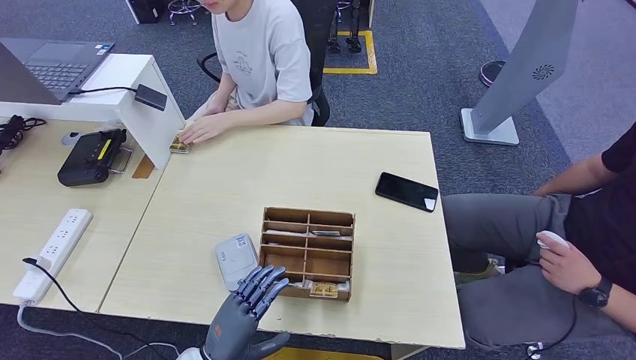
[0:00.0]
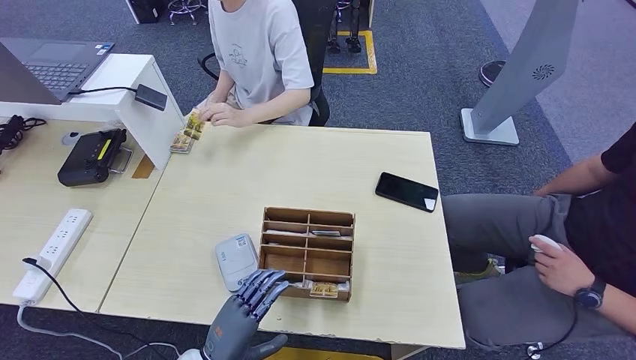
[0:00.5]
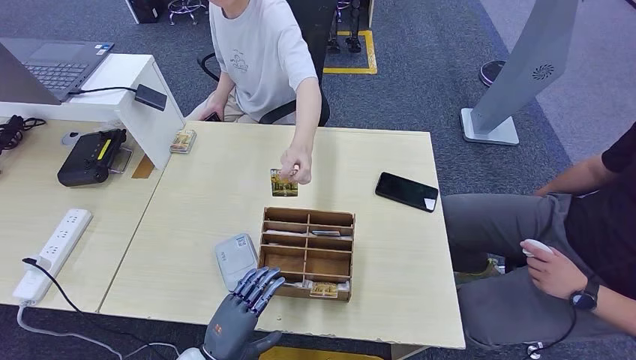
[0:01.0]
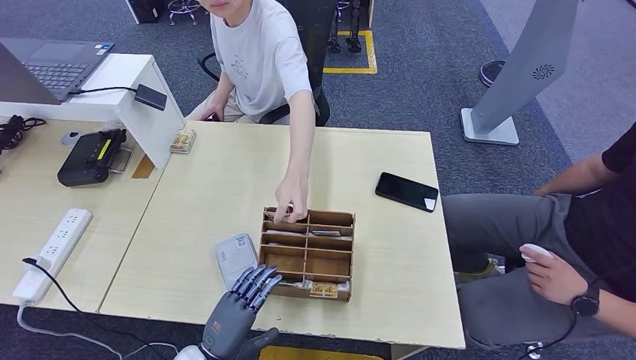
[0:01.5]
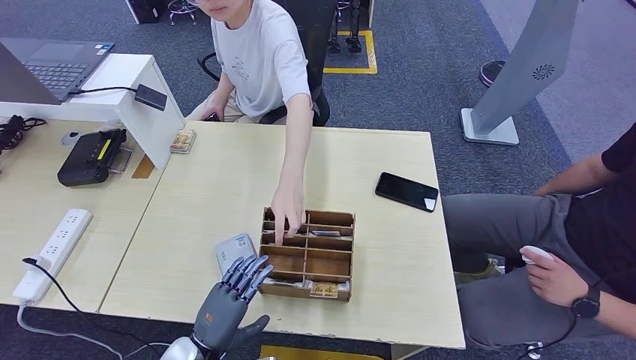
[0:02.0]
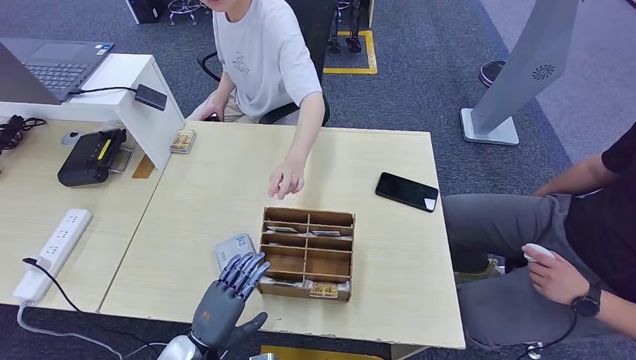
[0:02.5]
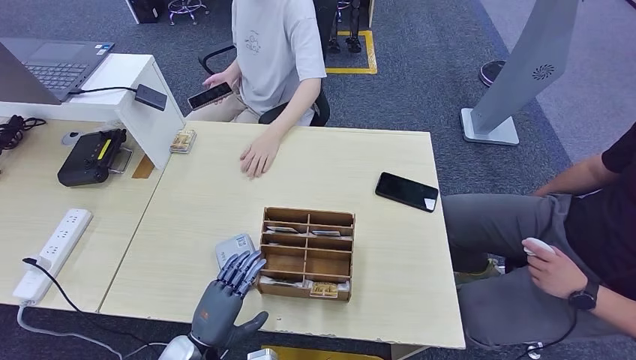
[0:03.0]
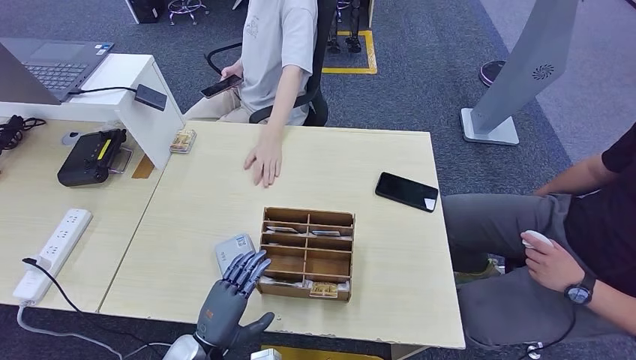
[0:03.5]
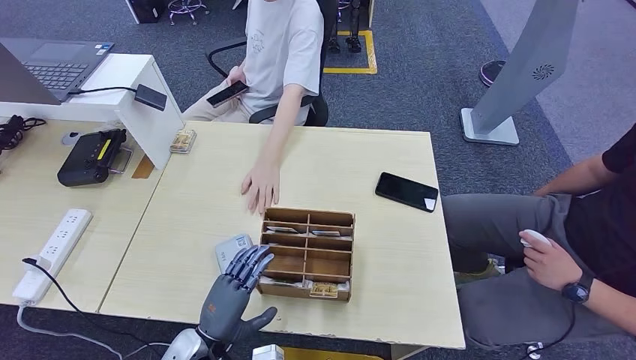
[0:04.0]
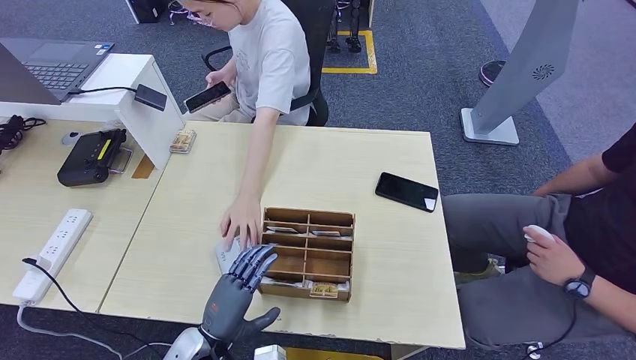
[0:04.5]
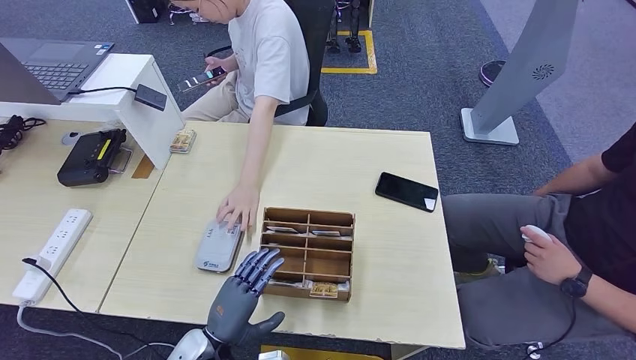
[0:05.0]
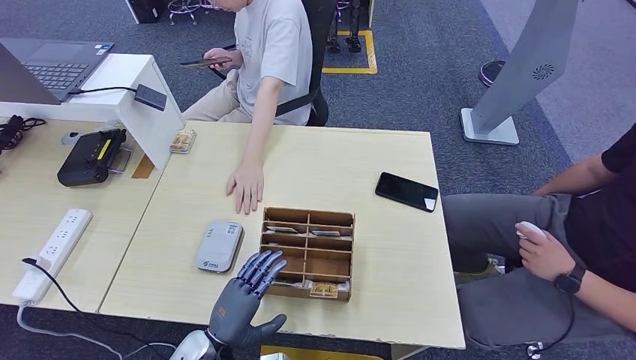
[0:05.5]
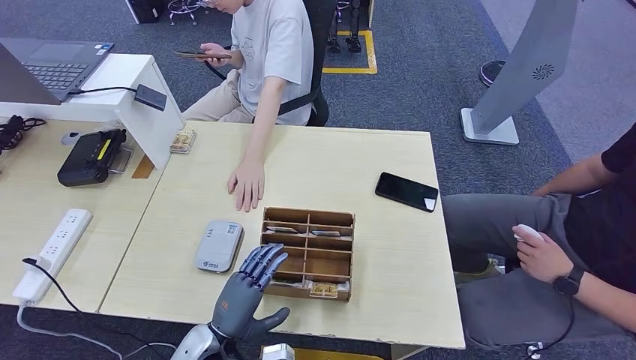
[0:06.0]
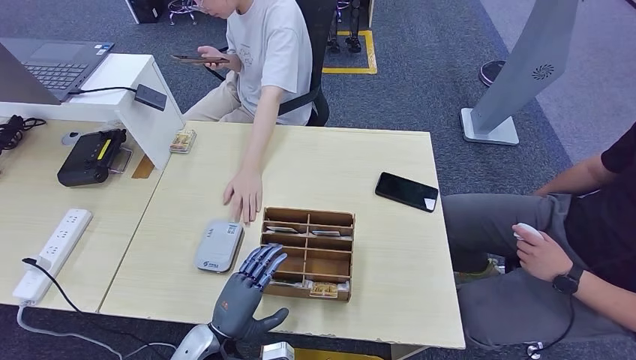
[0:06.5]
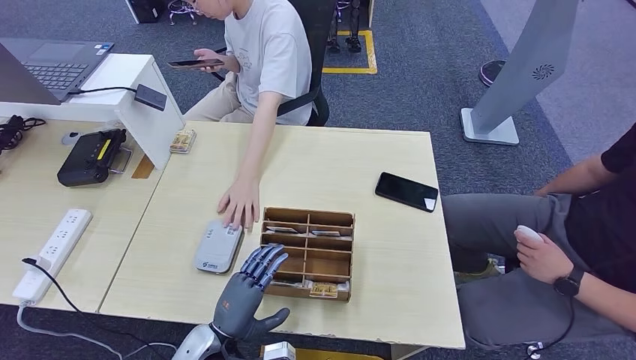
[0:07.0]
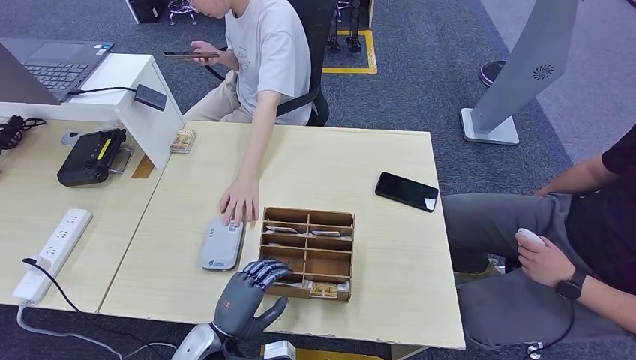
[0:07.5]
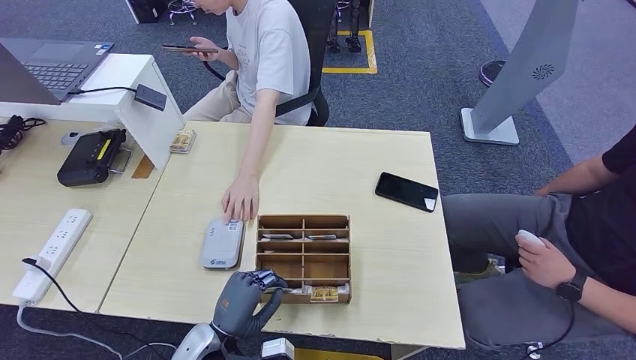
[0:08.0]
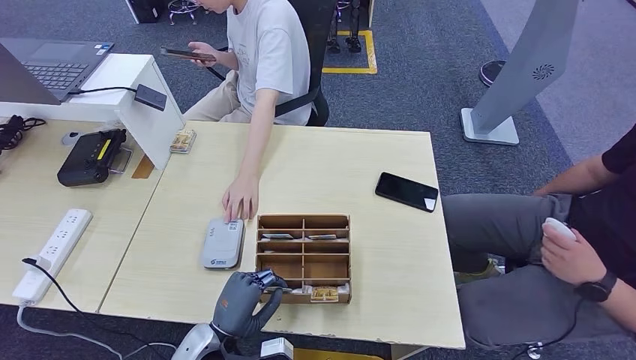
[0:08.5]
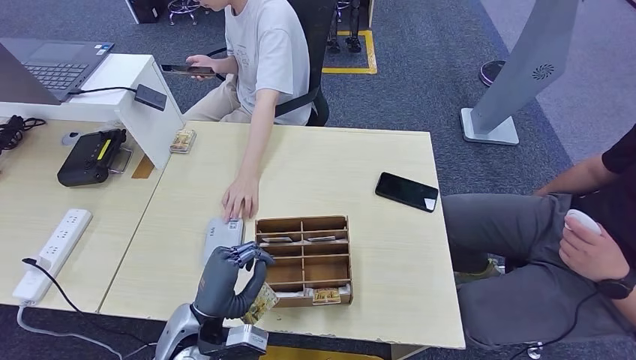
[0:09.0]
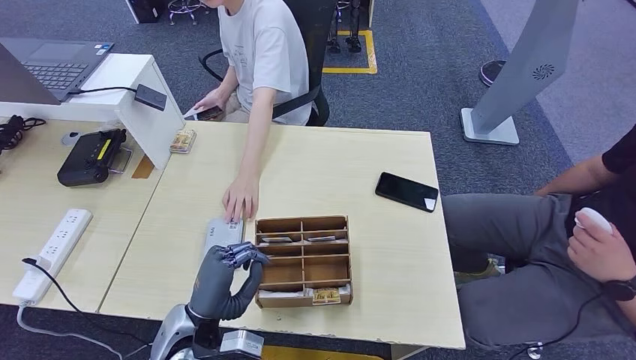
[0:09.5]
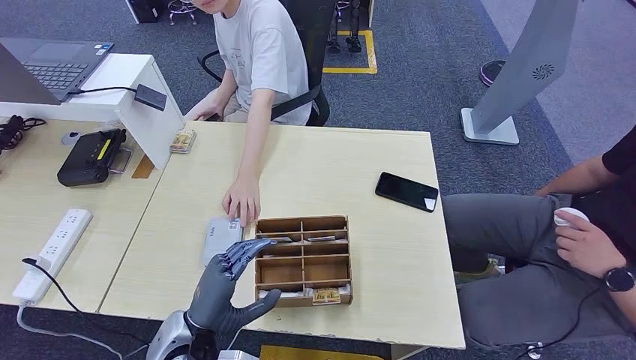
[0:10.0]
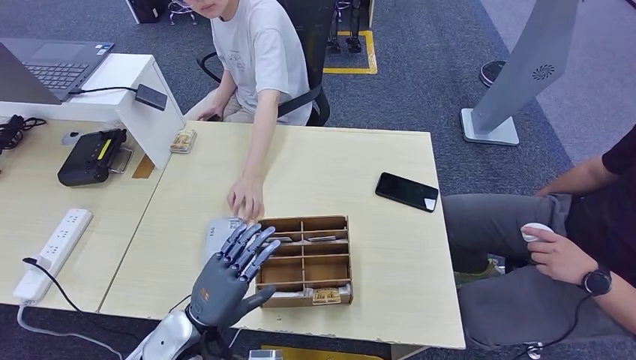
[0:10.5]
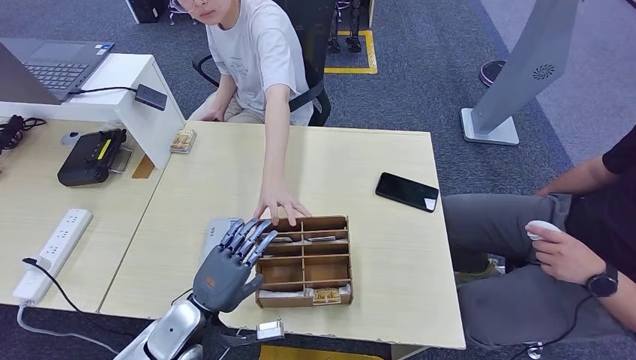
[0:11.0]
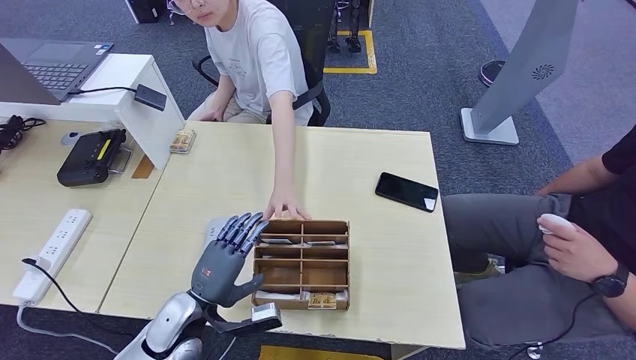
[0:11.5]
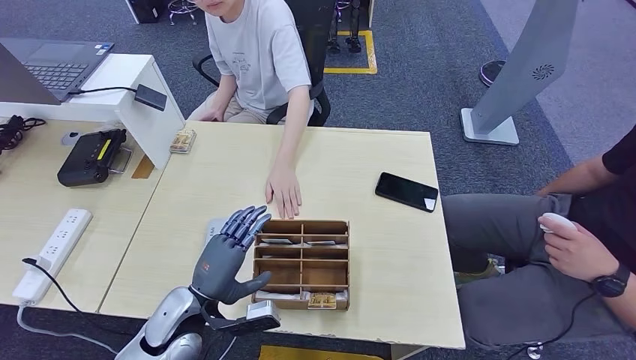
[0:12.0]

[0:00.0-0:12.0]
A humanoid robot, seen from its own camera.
0:00.0 to 0:06.0: The hands make only small movements.
0:06.0 to 0:08.0: Both hands stay about where they are.
0:08.0 to 0:10.0: The left hand shifts approximately 5 cm upward.

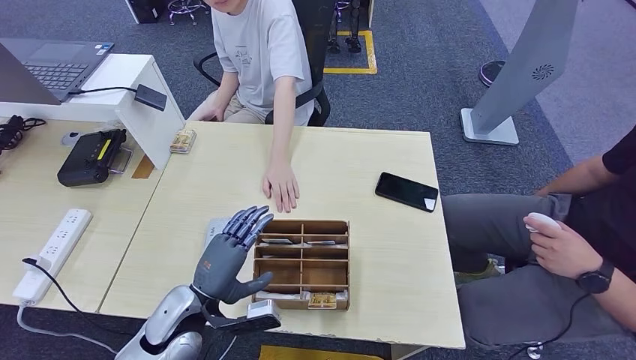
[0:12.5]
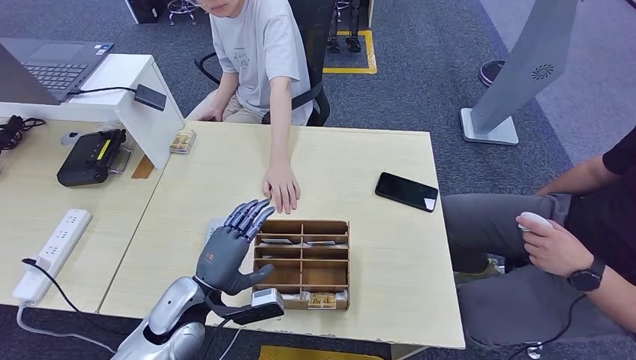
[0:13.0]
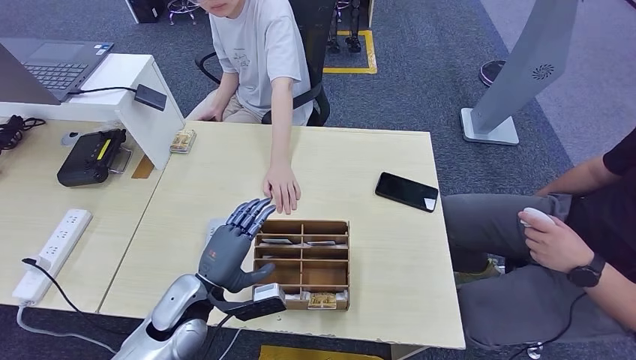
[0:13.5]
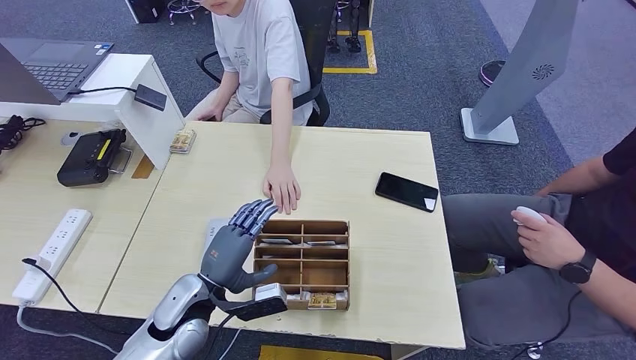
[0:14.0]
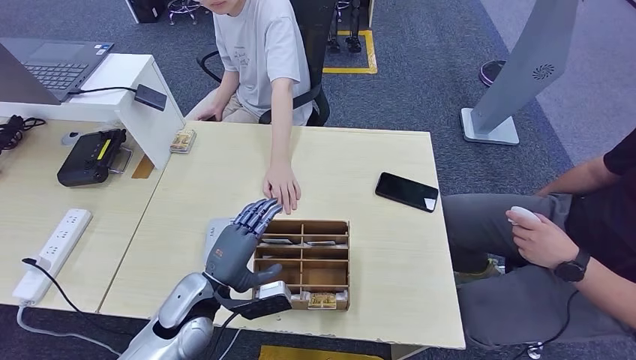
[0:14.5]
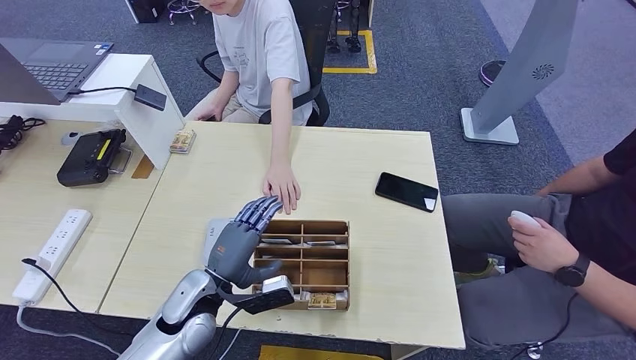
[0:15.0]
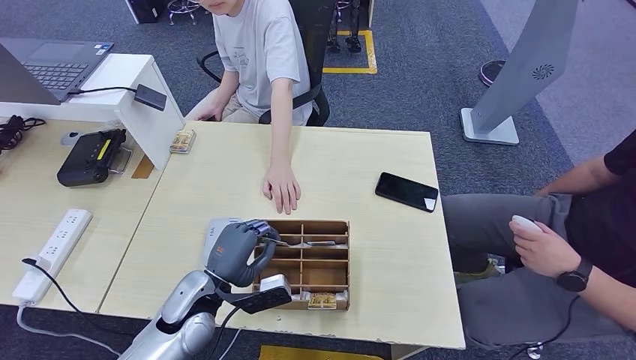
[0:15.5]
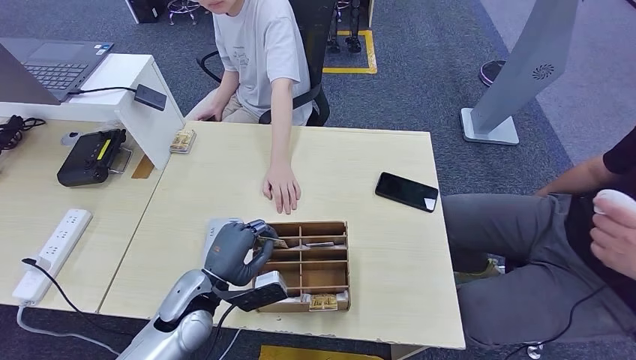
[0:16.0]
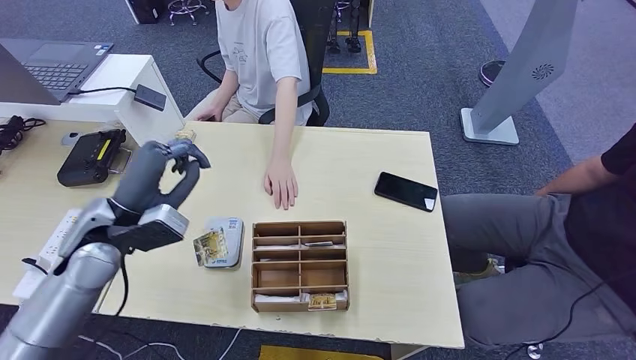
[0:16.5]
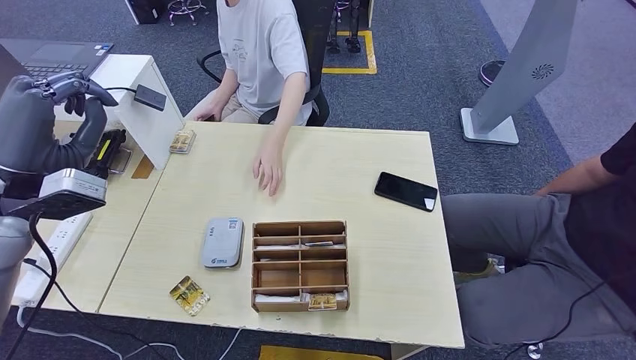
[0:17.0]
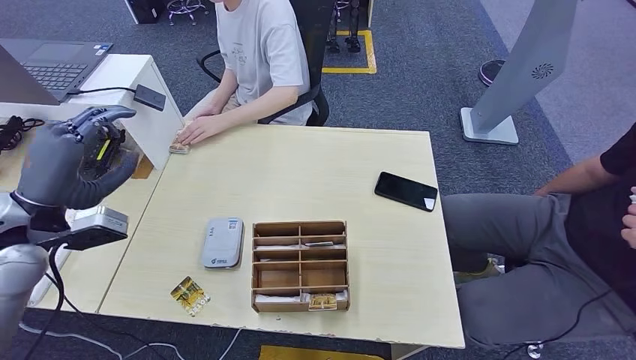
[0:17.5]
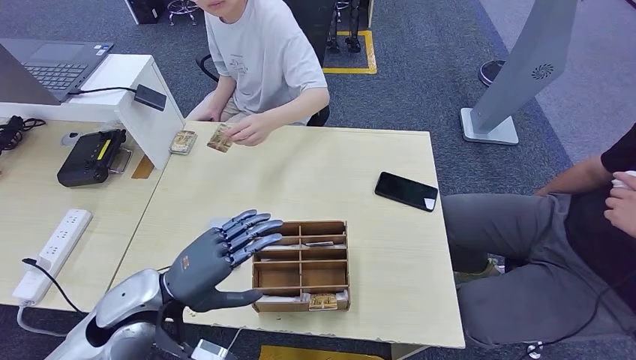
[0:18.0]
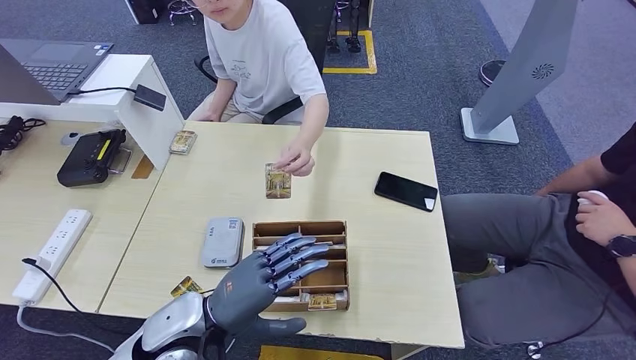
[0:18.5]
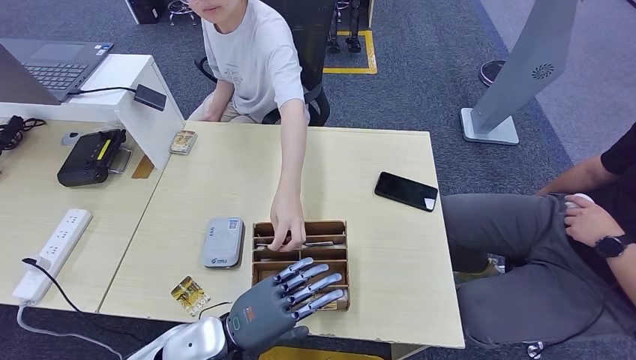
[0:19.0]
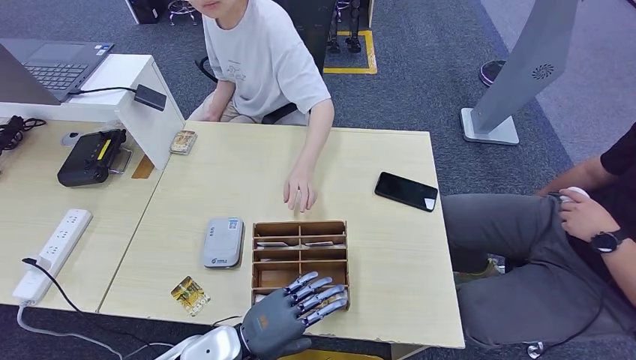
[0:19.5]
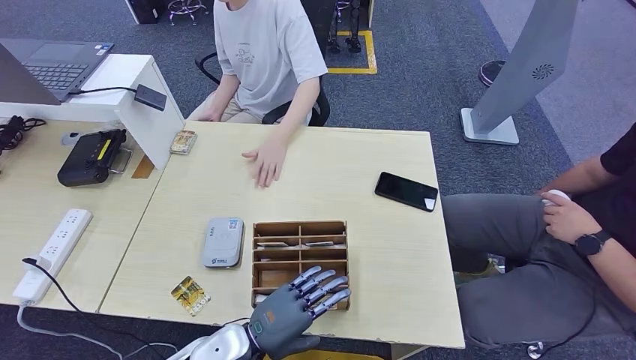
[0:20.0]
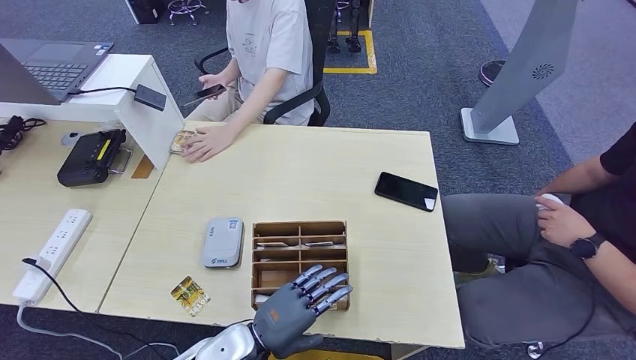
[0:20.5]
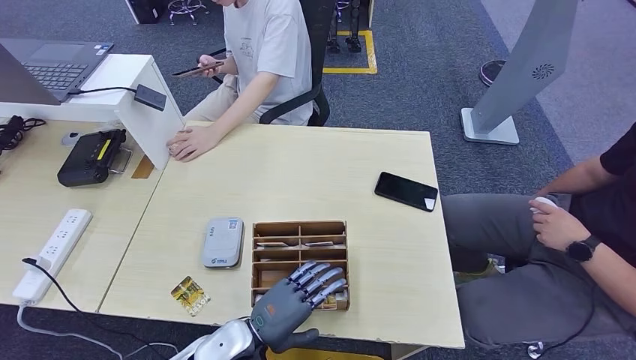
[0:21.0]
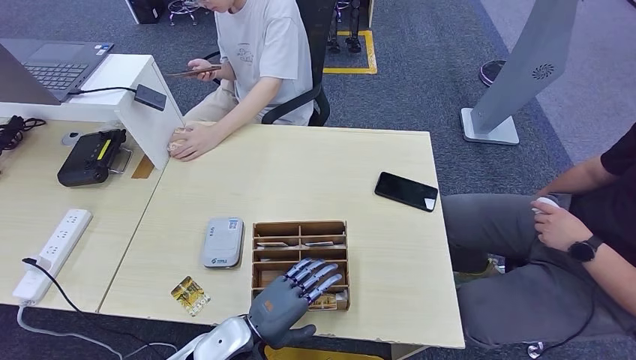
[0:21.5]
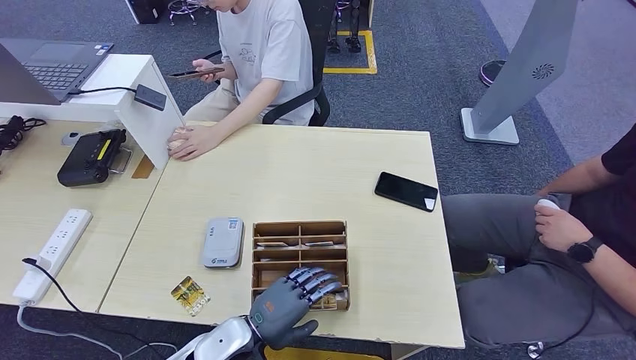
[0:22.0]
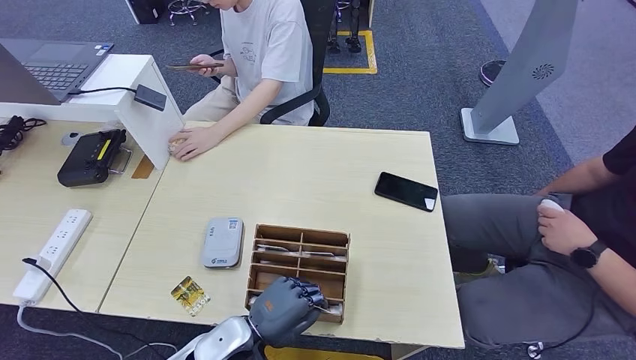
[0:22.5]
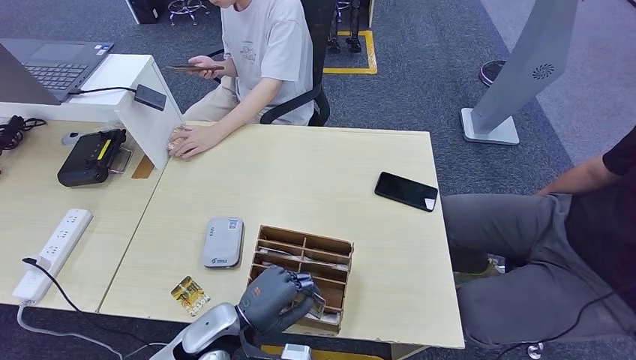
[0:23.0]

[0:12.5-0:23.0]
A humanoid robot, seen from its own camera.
0:12.5 to 0:14.5: The hands make only small movements.
0:14.5 to 0:16.5: The left hand heads upward, to the left and forward, covering some 20 cm.
0:16.5 to 0:19.0: The left hand goes about 20 cm to the right, backward and downward.
0:19.0 to 0:21.0: The left hand travels downward by about 5 cm.
0:21.0 to 0:23.0: There are only small adjustments of the hands.
